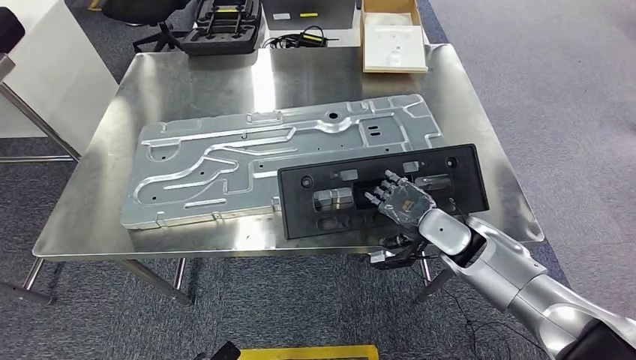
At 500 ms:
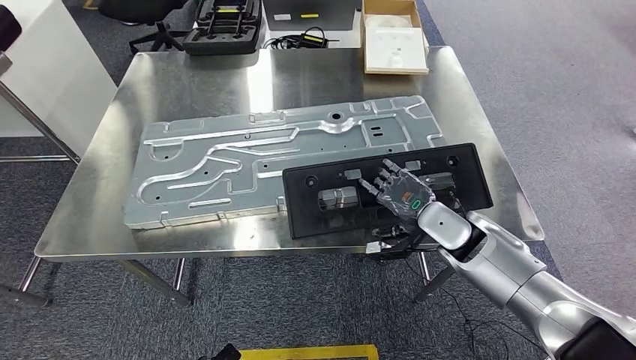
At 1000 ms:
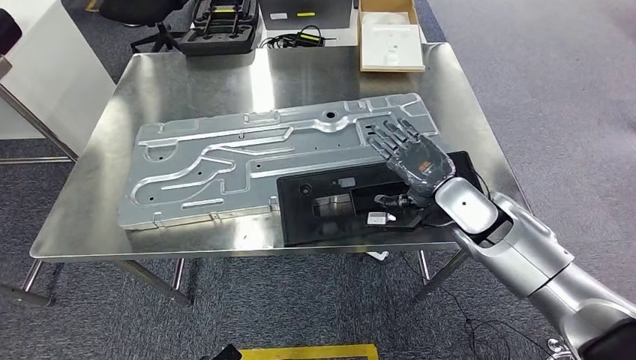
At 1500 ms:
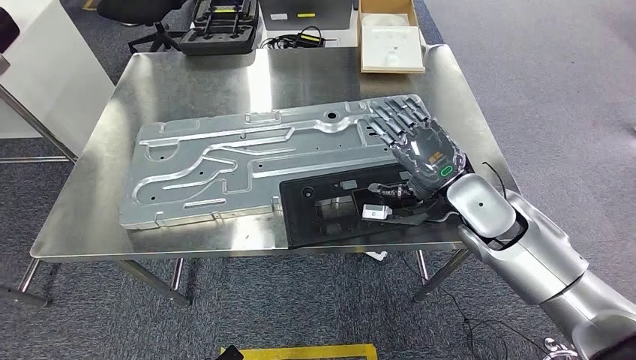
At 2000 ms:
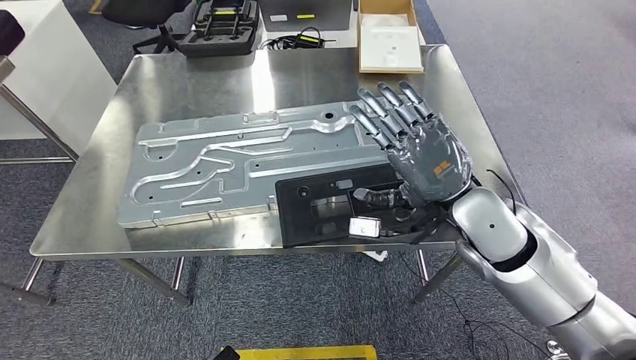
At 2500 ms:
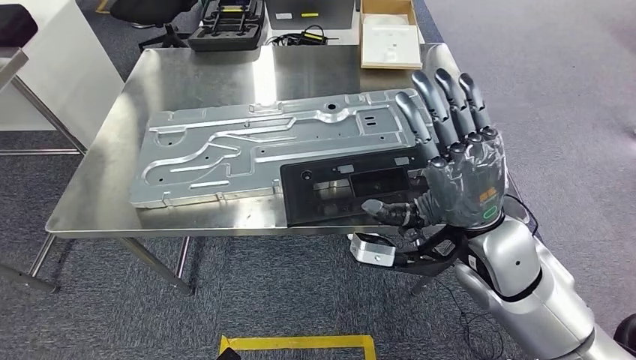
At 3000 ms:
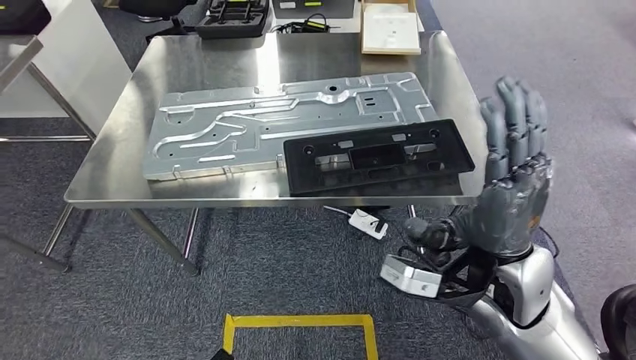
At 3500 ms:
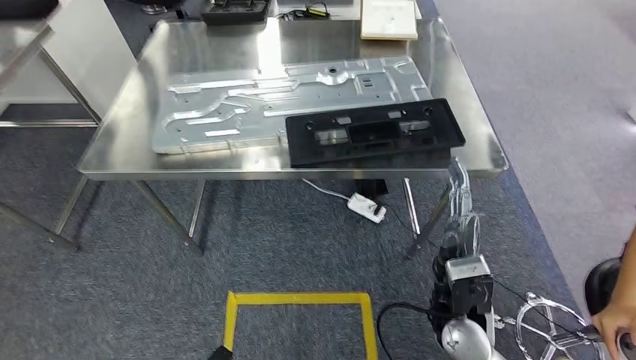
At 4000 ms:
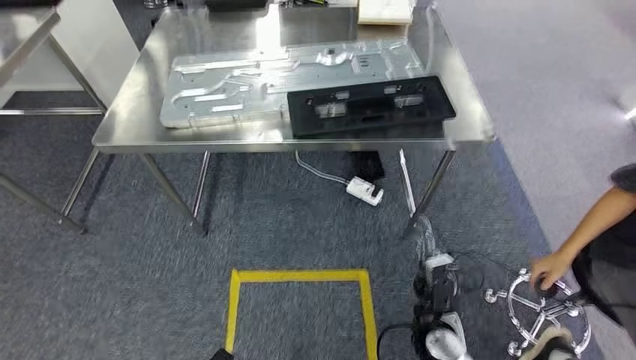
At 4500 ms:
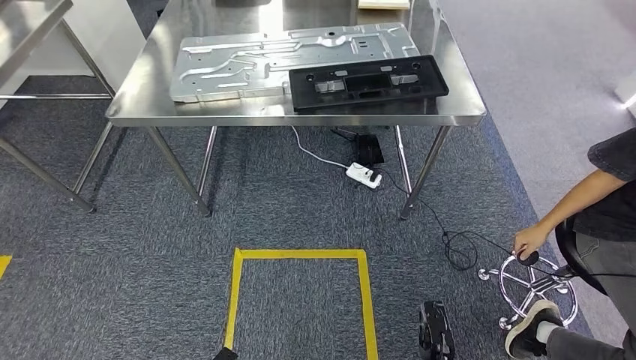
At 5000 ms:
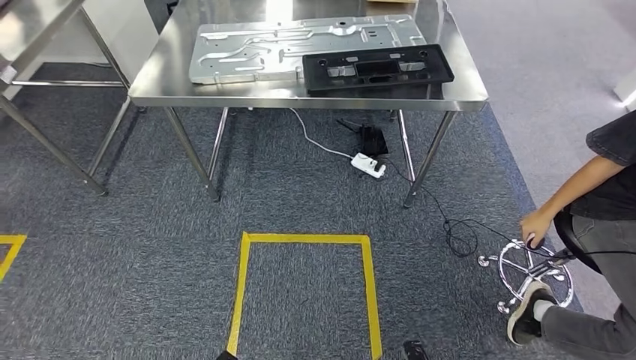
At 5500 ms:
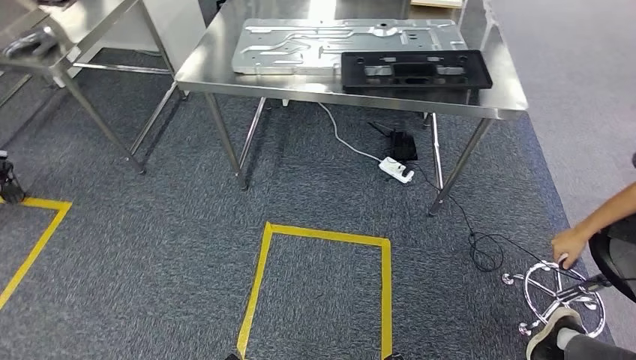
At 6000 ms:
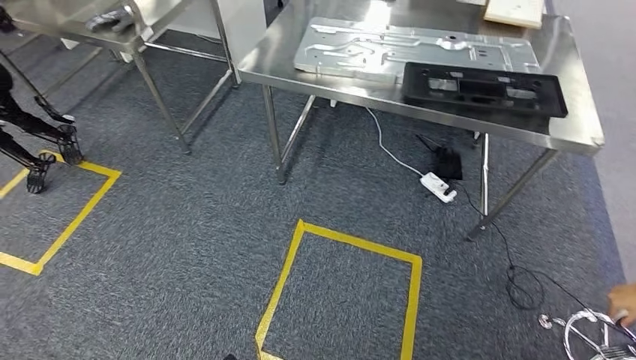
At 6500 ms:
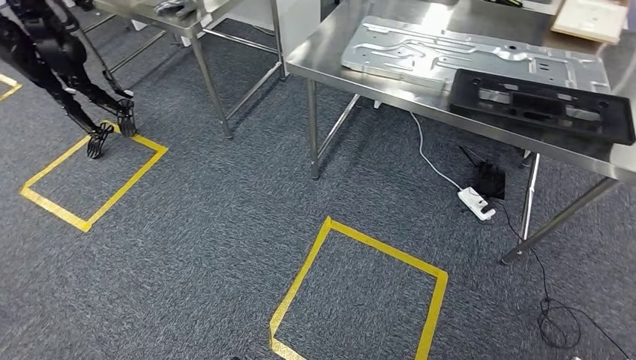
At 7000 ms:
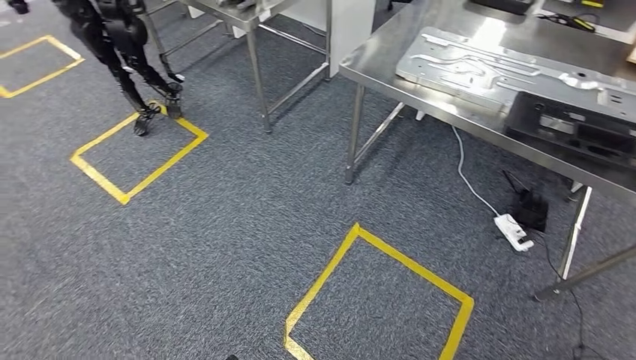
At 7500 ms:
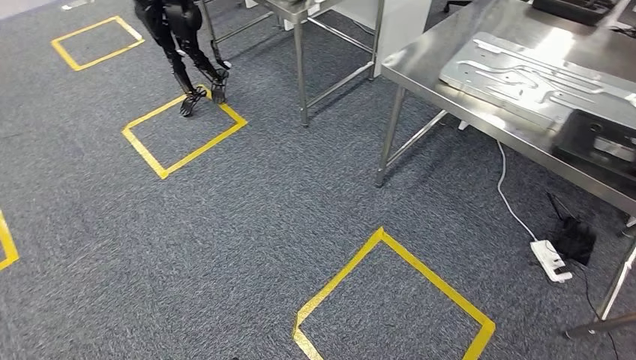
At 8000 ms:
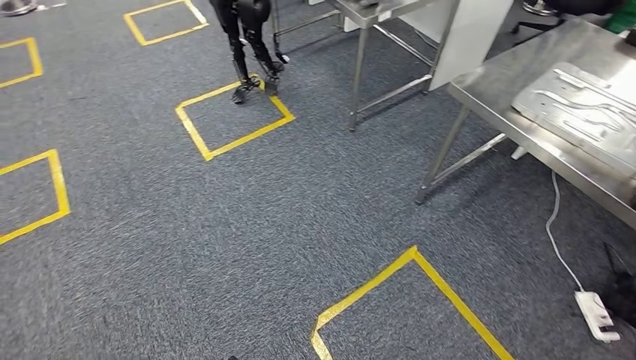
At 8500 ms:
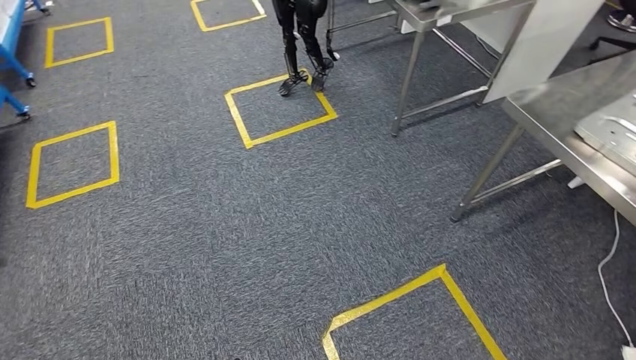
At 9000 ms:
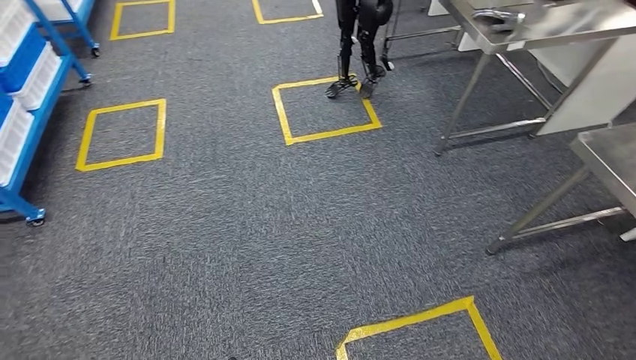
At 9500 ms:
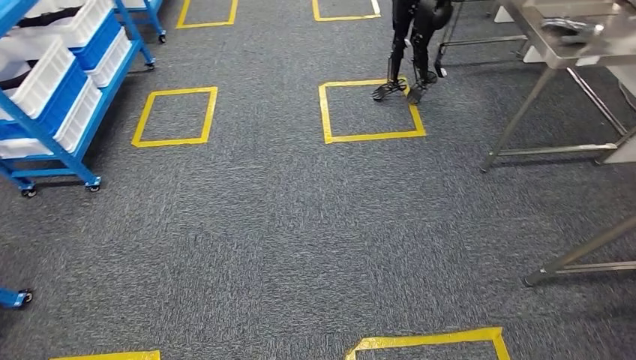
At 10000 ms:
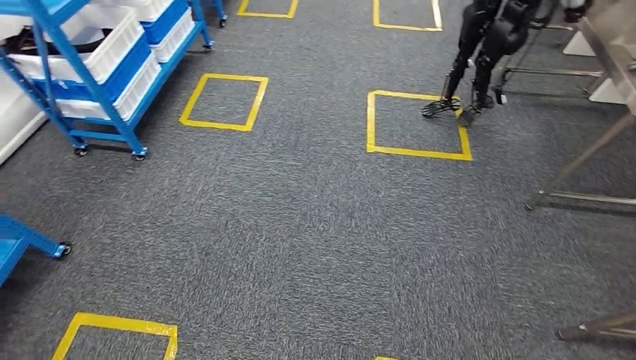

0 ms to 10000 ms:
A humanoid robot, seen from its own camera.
Step, 0 ms to 3000 ms: Insert the large material into the corresponding slot on the workbench.
0 ms to 2000 ms: The right hand heads upward, covering roughly 15 cm.

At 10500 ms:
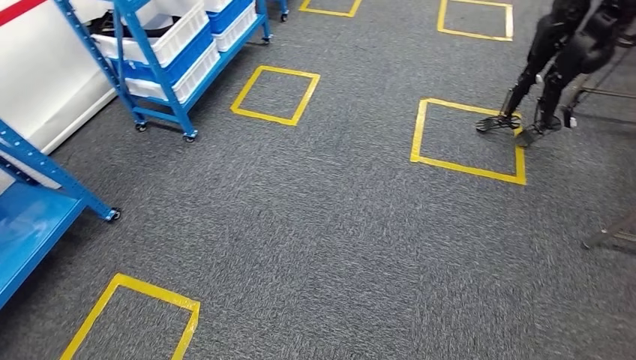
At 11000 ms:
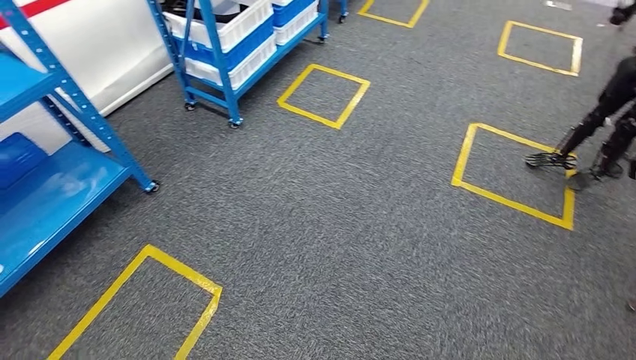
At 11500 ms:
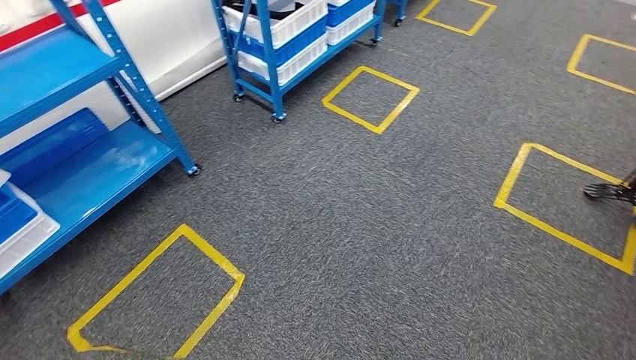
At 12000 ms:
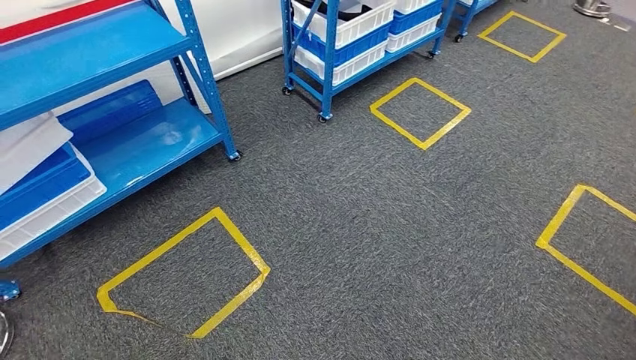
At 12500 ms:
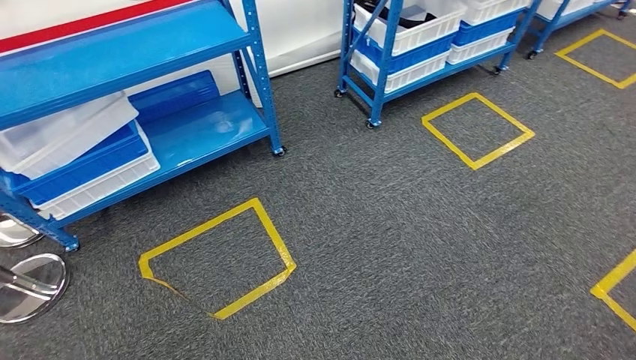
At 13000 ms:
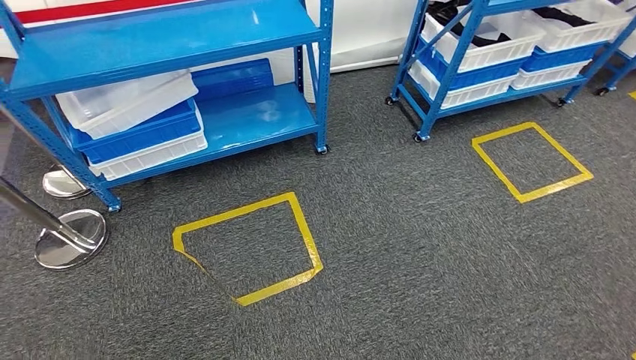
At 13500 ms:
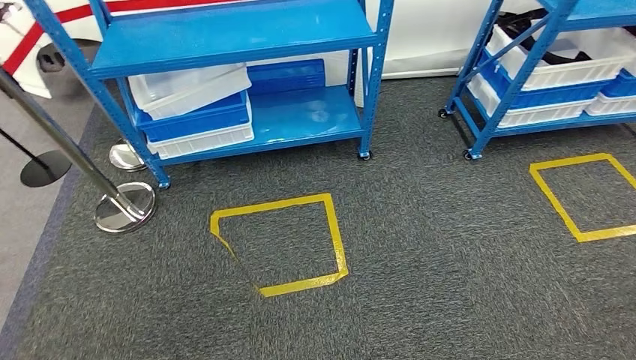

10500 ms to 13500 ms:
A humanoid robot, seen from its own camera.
Step, 10500 ms to 13500 ms: Return to the initial position at the shelf.
